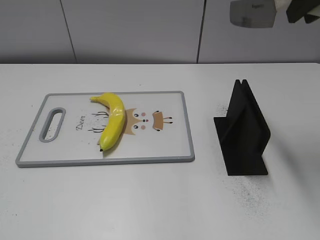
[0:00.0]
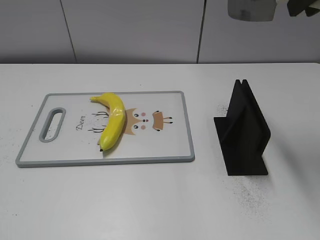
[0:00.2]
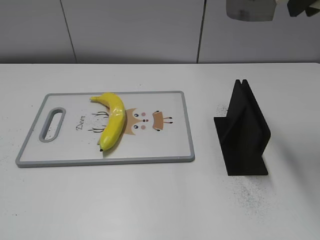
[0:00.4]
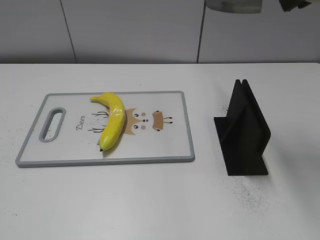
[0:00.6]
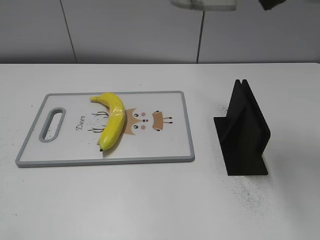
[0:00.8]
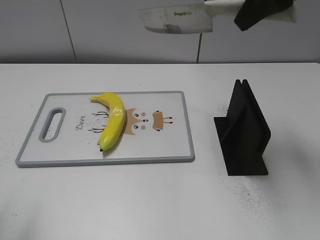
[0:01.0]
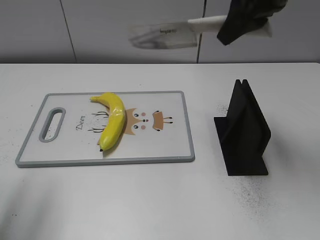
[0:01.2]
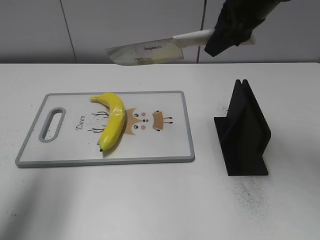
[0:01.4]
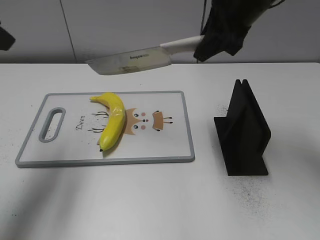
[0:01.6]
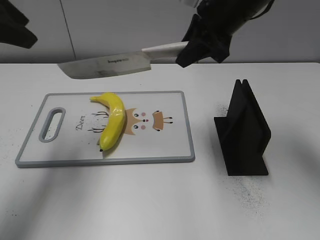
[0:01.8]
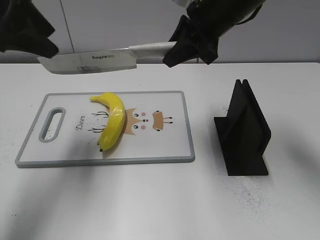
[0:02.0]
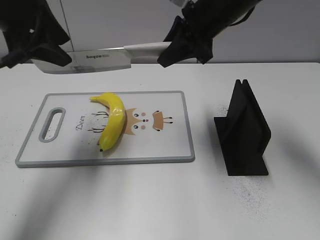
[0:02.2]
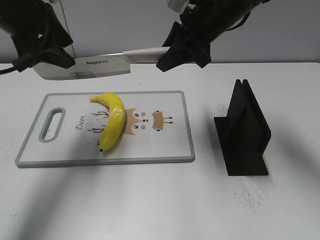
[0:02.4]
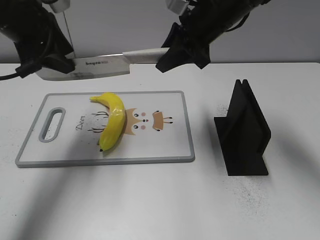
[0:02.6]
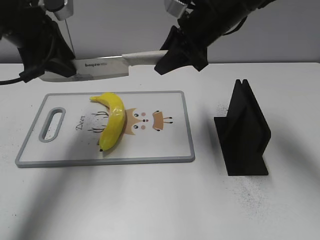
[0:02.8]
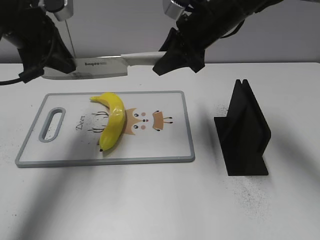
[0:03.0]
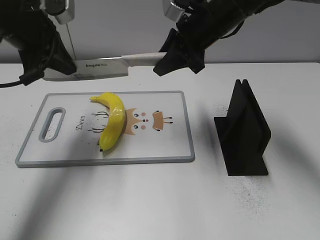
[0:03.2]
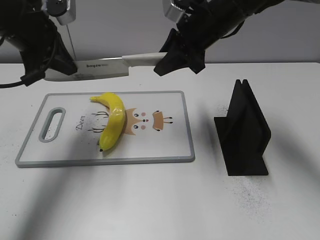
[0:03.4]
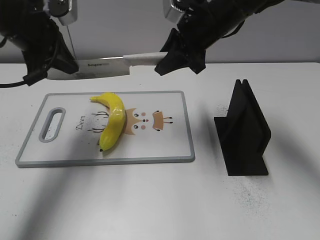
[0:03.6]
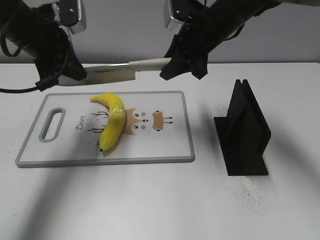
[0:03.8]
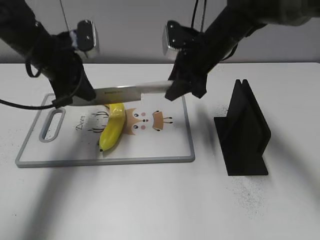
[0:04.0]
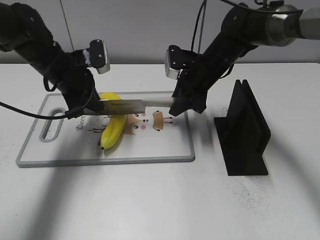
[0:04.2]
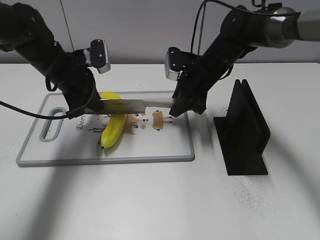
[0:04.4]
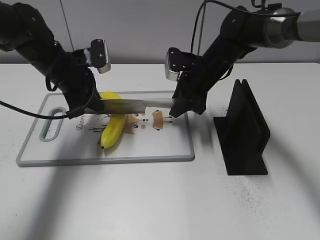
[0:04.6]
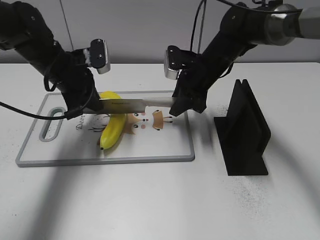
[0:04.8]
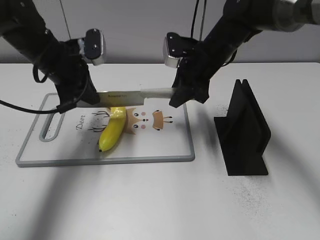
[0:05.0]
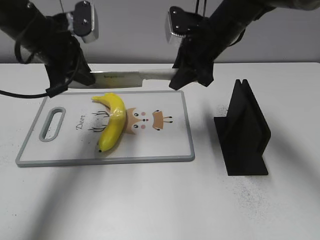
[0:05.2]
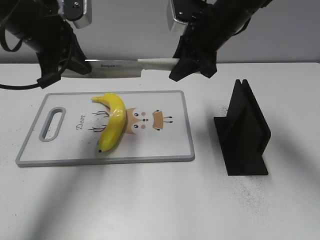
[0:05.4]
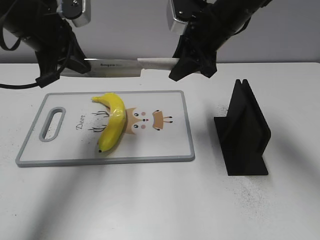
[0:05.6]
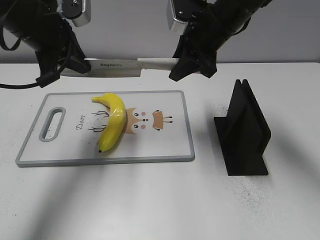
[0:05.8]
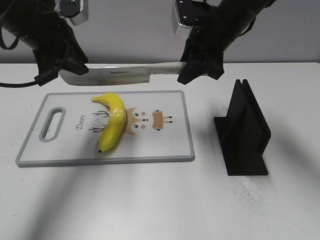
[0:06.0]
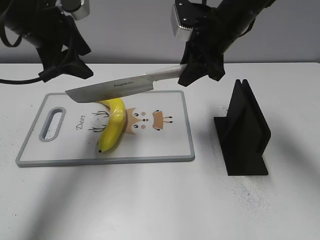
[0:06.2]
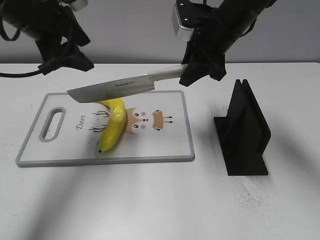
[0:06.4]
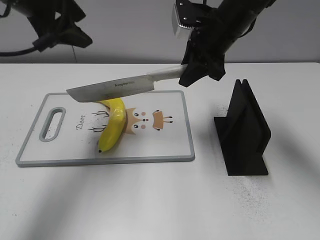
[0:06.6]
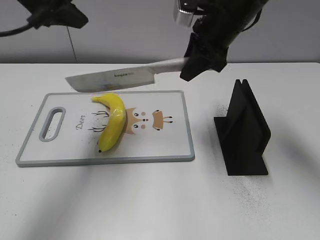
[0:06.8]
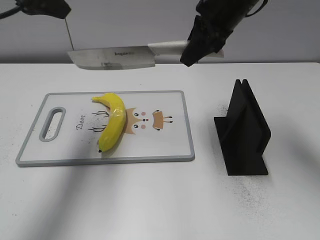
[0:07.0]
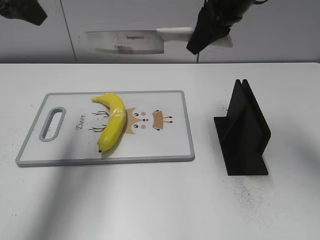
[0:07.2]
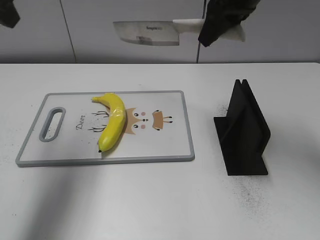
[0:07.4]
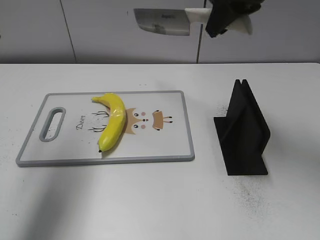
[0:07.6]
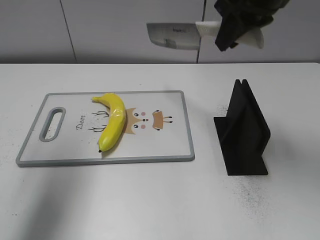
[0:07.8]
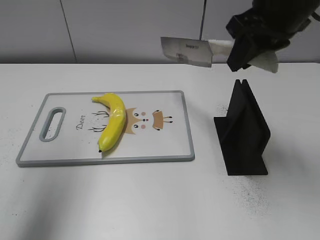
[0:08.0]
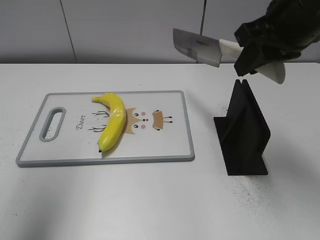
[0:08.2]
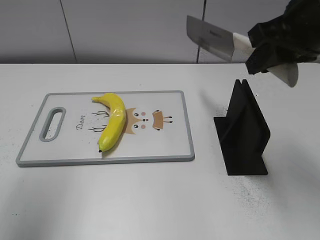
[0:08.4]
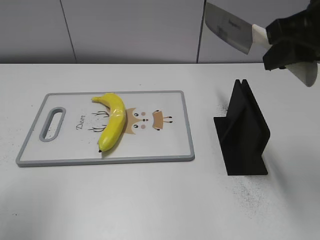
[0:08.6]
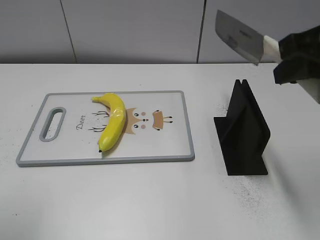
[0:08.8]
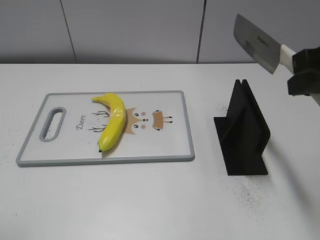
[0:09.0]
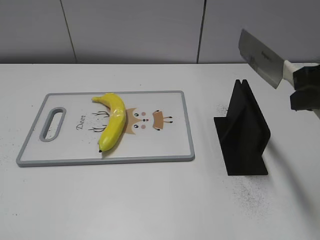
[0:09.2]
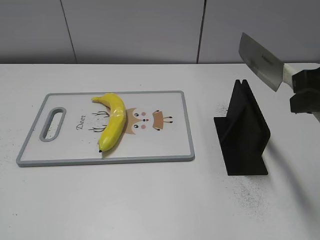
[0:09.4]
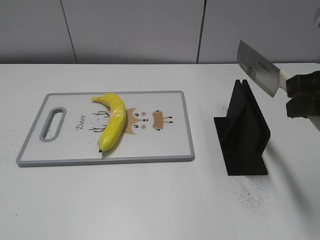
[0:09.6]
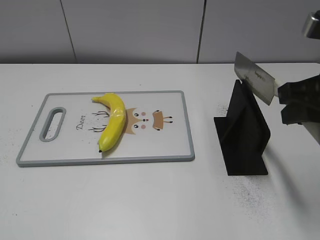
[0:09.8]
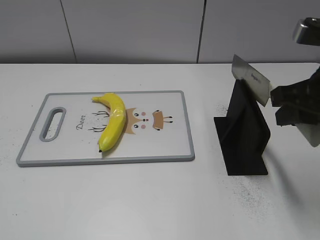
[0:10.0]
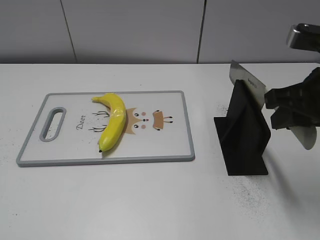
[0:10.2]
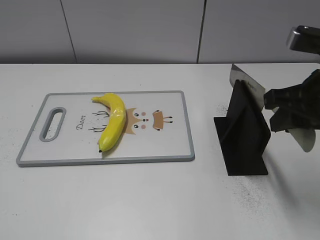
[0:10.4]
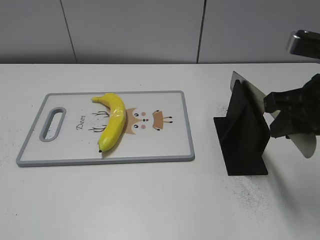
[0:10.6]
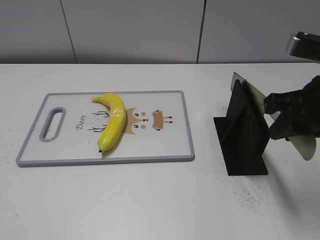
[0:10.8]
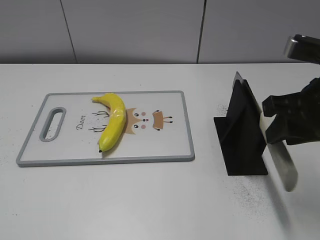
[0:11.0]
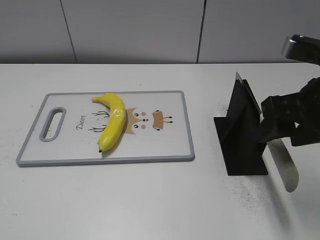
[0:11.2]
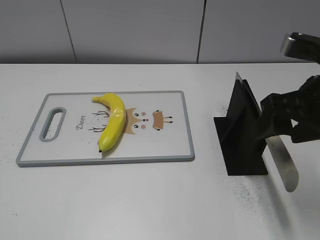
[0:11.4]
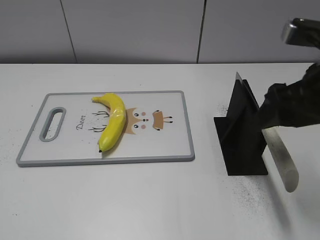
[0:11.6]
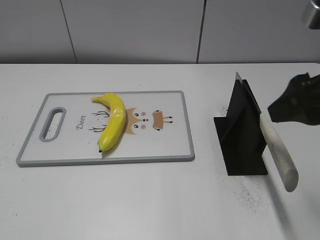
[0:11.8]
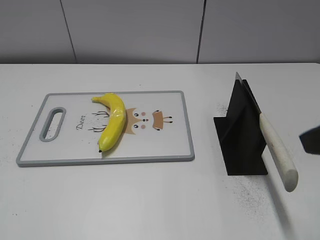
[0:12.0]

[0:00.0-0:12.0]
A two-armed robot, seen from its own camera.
Task of the whole recording: cut plastic banana.
Step, 0.0 to 5.8 s: Hold the blade with your left hand.
Step, 6.2 to 7.6 s: Cut the banana with your right hand.
Step, 7.8 to 9.0 s: Lift the knife with your right hand.
0.0 to 1.6 s: The right gripper goes roughly 15 cm downward, forward and to the left. Meanwhile the left gripper travels forward by some 30 cm.
1.6 to 3.0 s: The left gripper moves forward, downward and to the right, roughly 15 cm, and closes its fingers; the right gripper heads downward, covering approximately 5 cm.
3.0 to 4.4 s: The grippers both shift downward by approximately 10 cm.
4.4 to 6.0 s: The grippers both shift upward by roughly 10 cm.
6.0 to 7.6 s: The right gripper moves upward, about 10 cm, while the left gripper goes roughly 15 cm upward, backward and to the left, and opens.
7.6 to 9.0 s: The left gripper is displaced backward by approximately 20 cm. The right gripper heads backward and to the right, covering some 20 cm.
9.0 to 10.4 s: The right gripper heads downward, covering roughly 5 cm.
10.4 to 12.0 s: The right gripper moves backward, approximately 5 cm, and opens up.

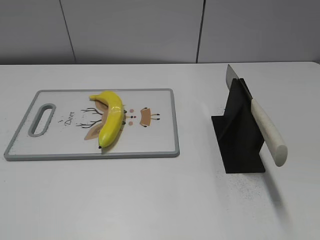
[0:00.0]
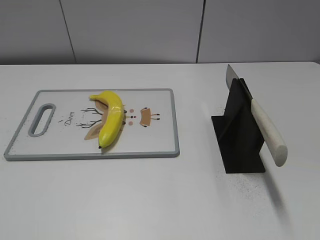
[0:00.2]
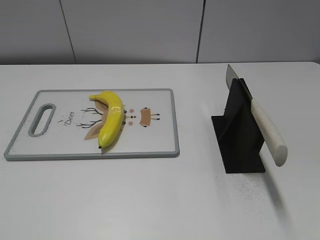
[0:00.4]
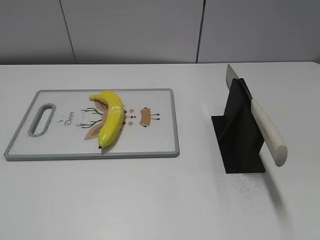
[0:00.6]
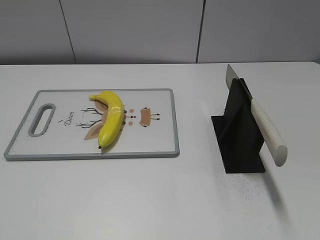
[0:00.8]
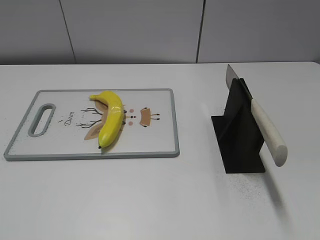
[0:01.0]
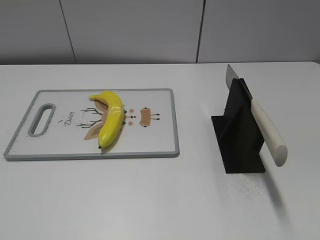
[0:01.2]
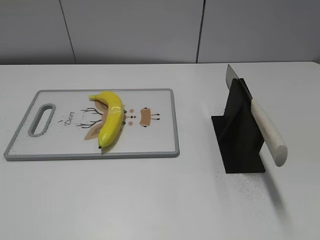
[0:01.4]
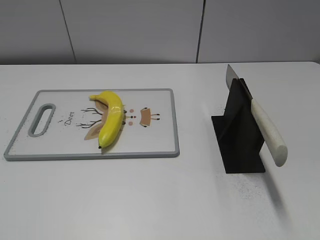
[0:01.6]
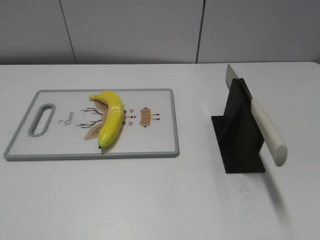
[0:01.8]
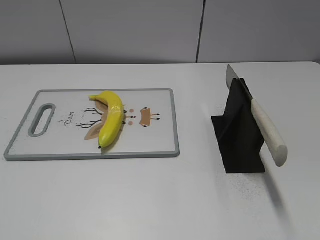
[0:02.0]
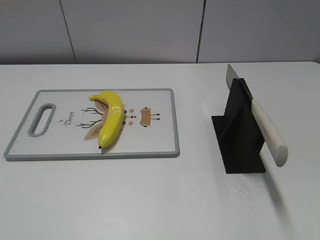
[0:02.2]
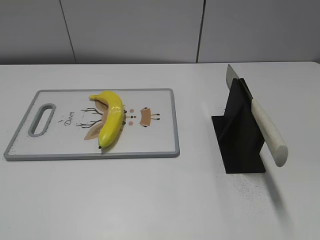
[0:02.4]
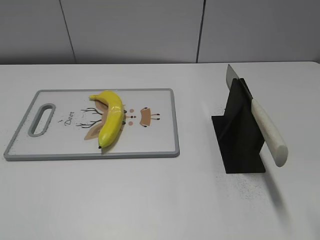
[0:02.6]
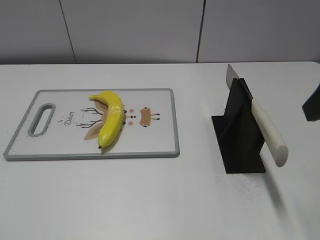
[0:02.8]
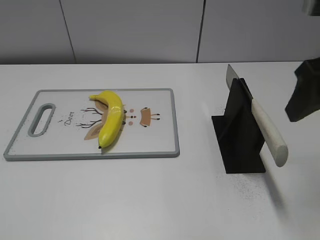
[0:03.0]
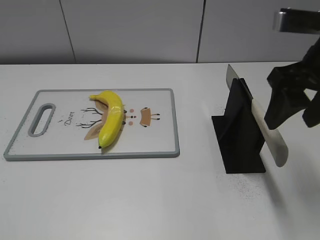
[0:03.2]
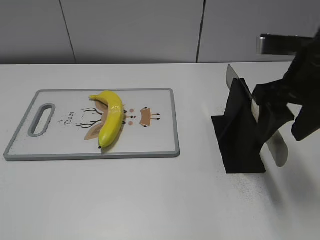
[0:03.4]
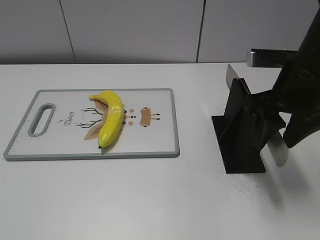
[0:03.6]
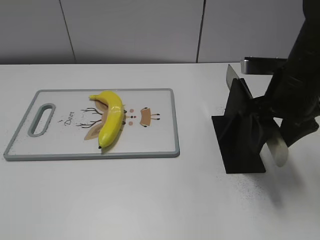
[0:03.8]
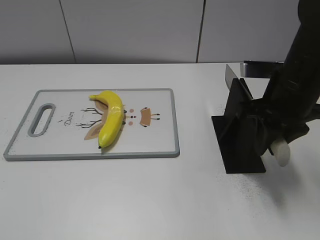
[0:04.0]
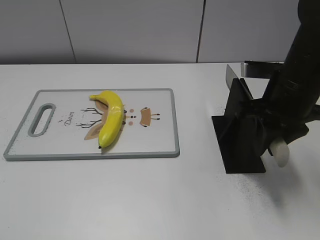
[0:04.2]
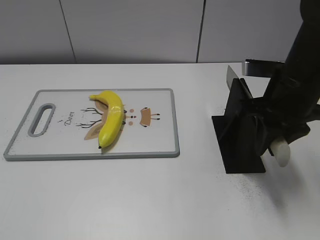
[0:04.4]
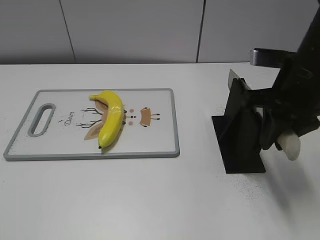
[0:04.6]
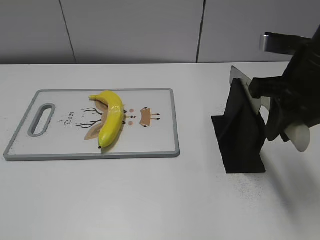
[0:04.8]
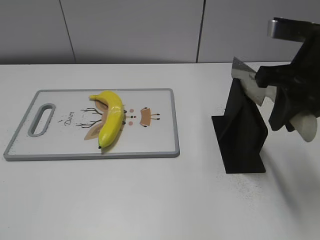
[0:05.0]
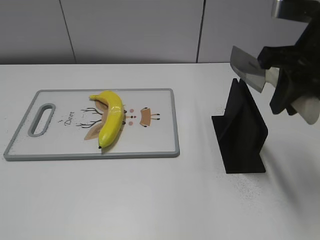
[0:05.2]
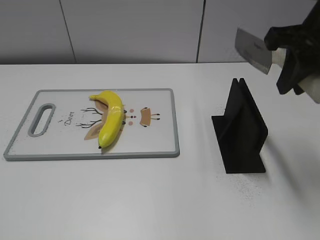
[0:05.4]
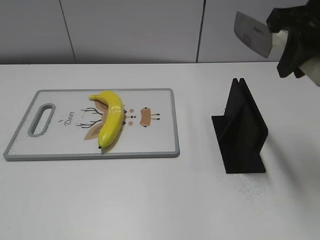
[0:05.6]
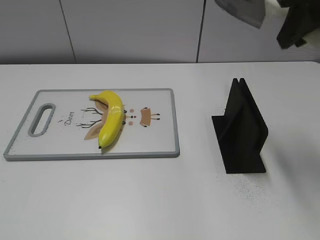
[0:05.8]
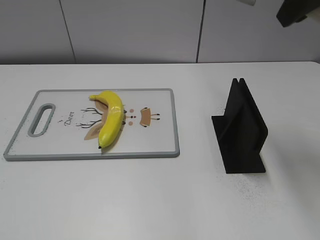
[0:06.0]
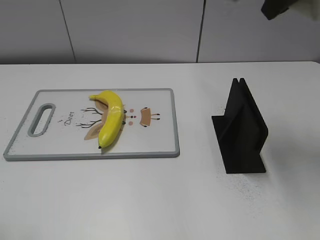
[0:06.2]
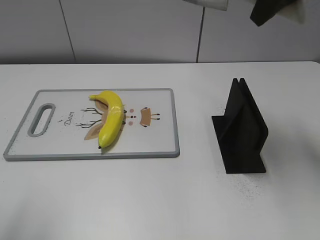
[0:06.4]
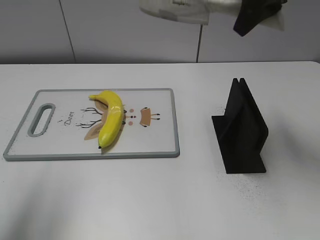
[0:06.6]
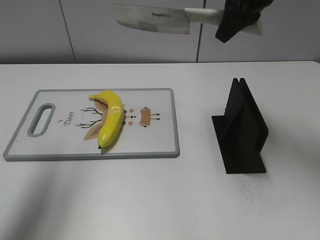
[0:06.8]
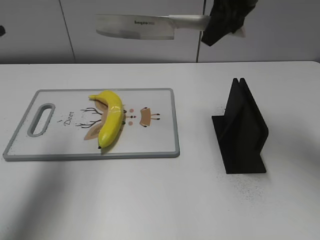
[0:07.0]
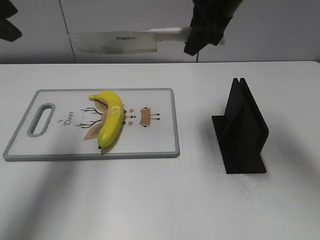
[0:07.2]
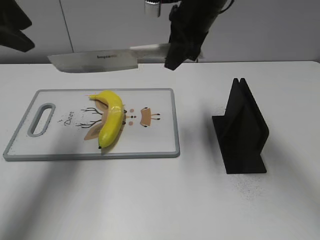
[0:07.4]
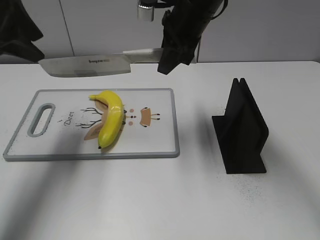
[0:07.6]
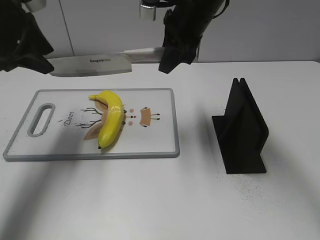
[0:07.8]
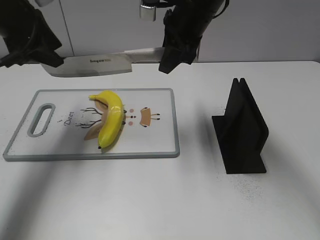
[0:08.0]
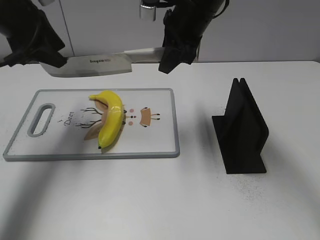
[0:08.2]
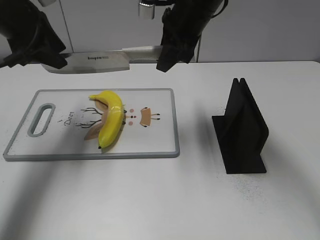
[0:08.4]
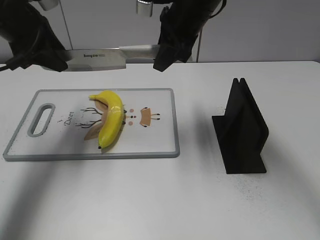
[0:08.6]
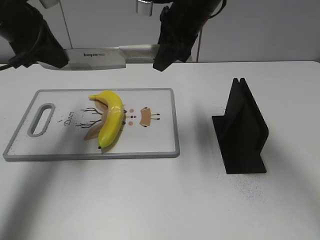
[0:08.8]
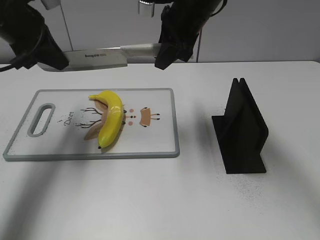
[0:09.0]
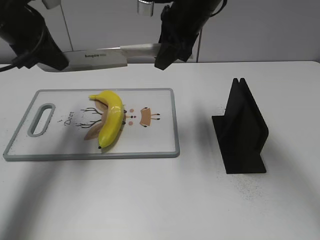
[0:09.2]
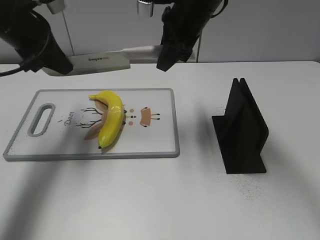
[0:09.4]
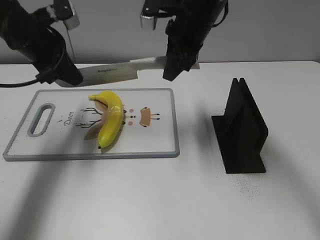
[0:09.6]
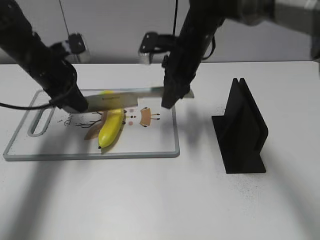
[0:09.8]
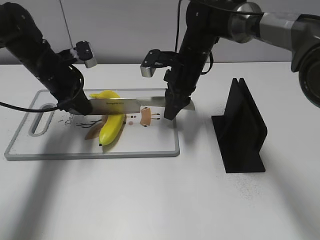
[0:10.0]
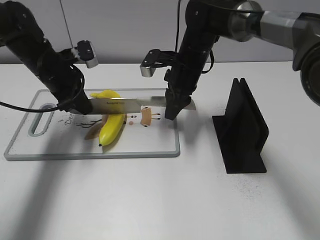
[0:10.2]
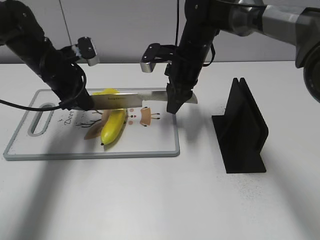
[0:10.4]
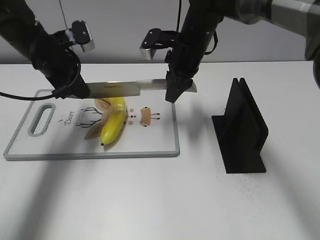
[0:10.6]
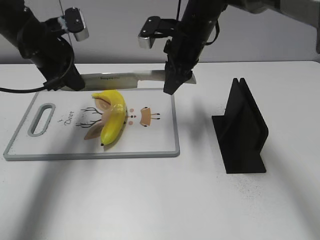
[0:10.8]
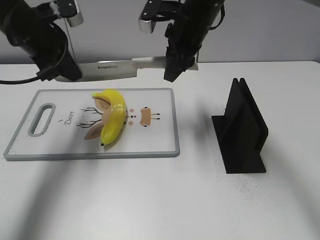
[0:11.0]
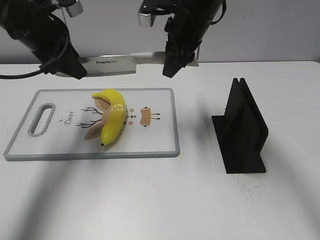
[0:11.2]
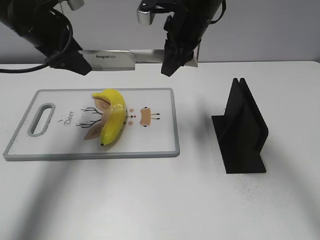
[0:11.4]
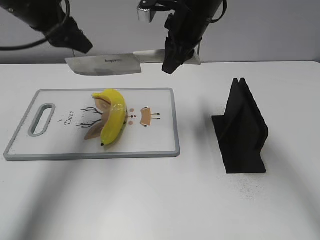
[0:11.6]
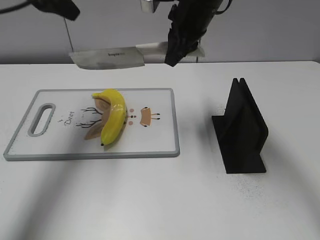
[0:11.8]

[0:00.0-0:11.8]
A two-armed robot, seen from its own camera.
Task of the whole recording: cut plastic banana.
Step, 0.0 to 5.2 s: Grab the knife handle with your right hand.
Step, 5.4 to 11.0 s: Lift the knife with your right hand.
1.4 to 3.0 s: The right gripper moves forward, roughly 25 cm.
3.0 to 4.4 s: The right gripper shifts roughly 10 cm downward and forward, and closes.
4.4 to 6.0 s: The right gripper travels upward by approximately 20 cm.
6.0 to 7.4 s: The left gripper shifts roughly 30 cm forward. Meanwhile the right gripper moves to the left, downward and forward, approximately 20 cm.
7.4 to 8.8 s: The left gripper goes approximately 10 cm downward and forward, and closes.
8.8 to 10.4 s: The two grippers go about 10 cm downward.
10.4 to 11.8 s: The right gripper travels upward by roughly 10 cm. Meanwhile the left gripper heads upward, covering roughly 20 cm, and opens up.
